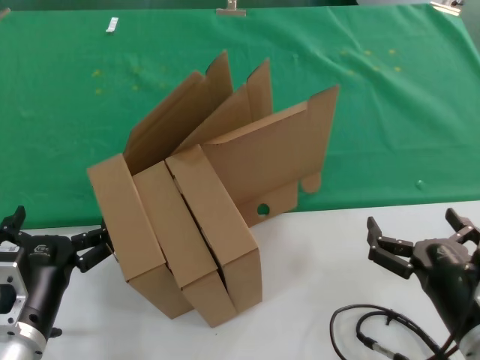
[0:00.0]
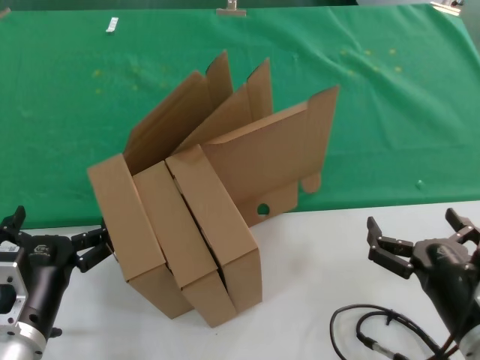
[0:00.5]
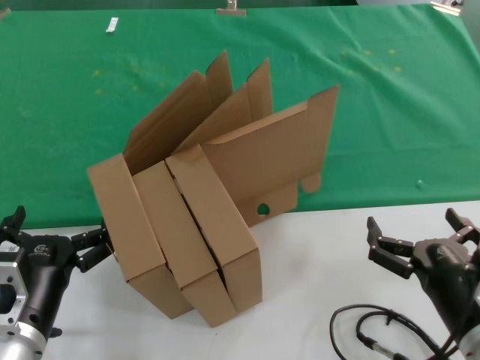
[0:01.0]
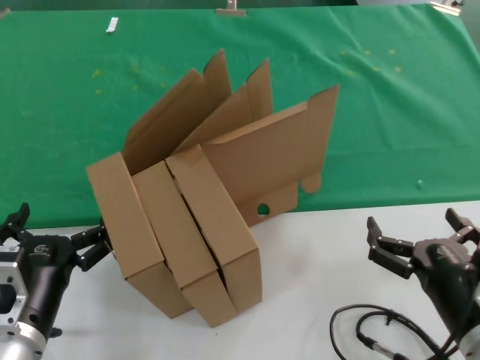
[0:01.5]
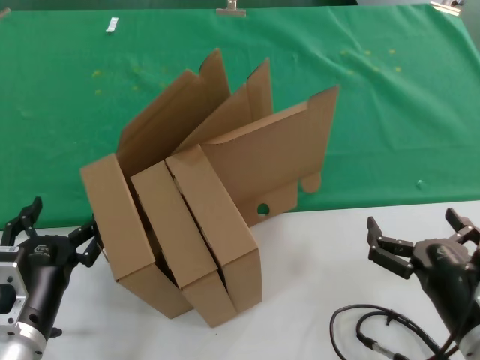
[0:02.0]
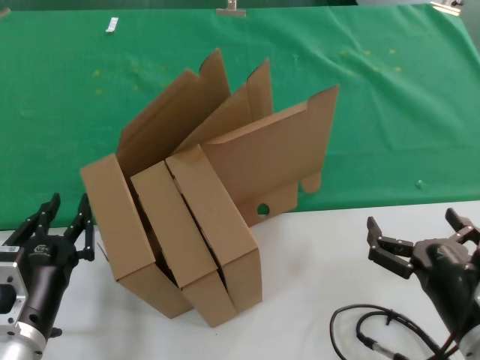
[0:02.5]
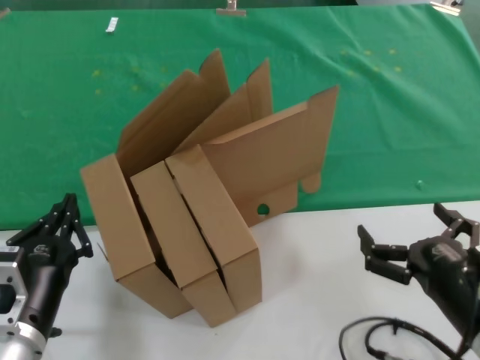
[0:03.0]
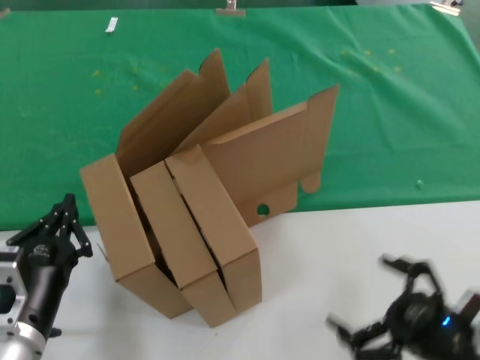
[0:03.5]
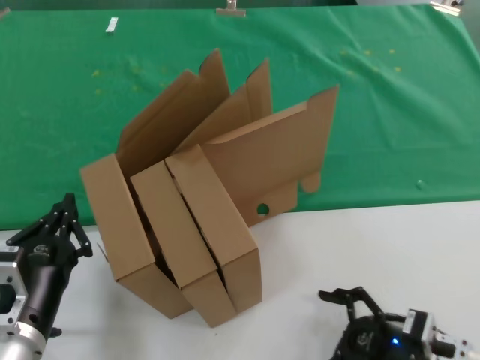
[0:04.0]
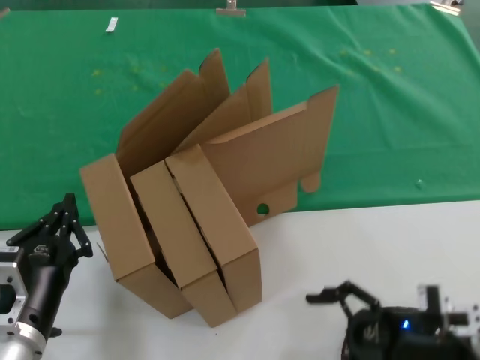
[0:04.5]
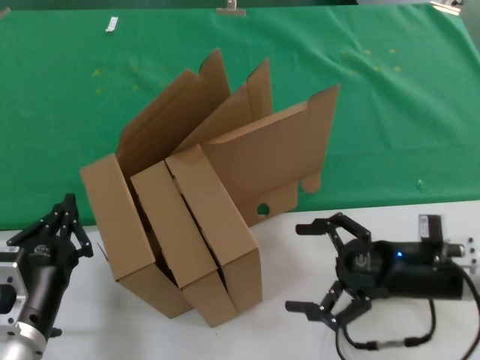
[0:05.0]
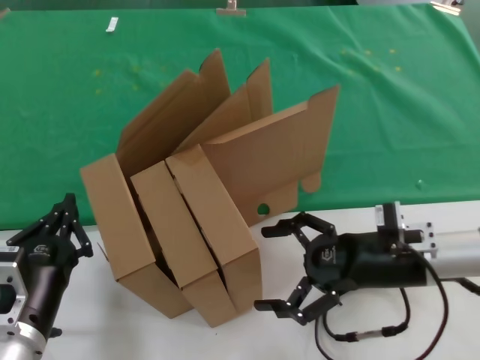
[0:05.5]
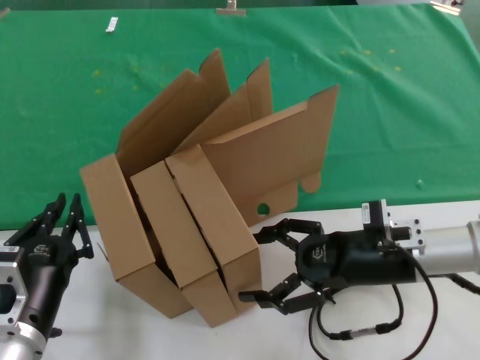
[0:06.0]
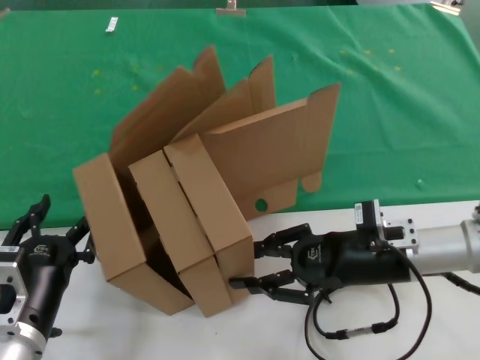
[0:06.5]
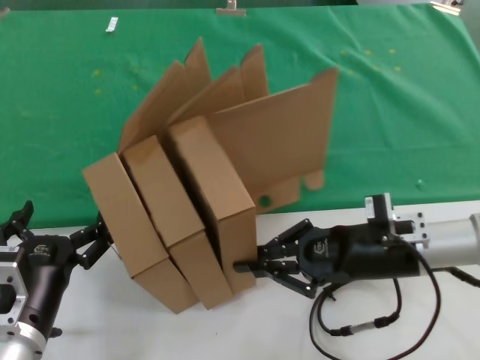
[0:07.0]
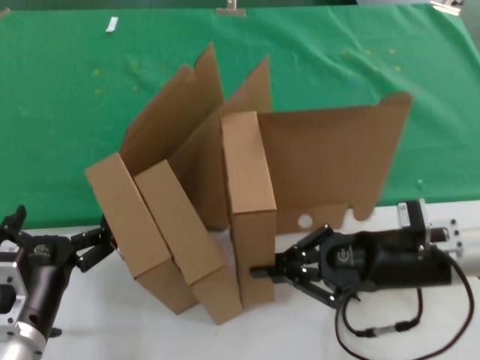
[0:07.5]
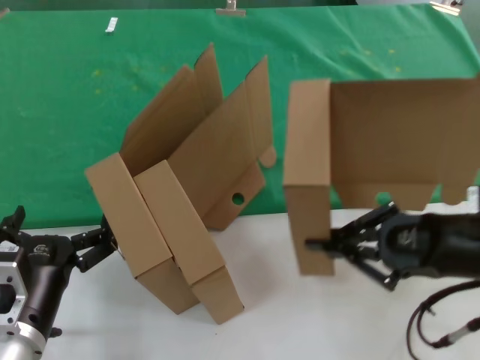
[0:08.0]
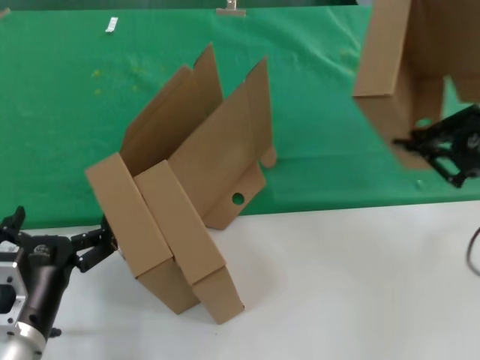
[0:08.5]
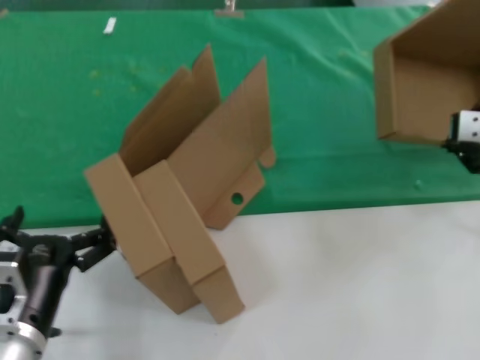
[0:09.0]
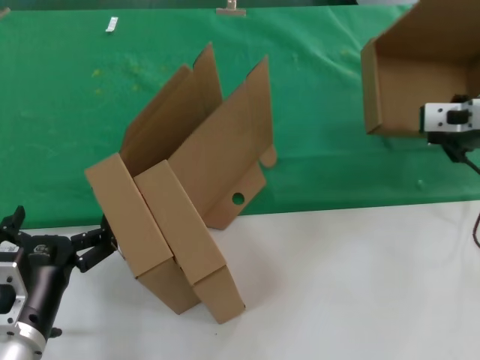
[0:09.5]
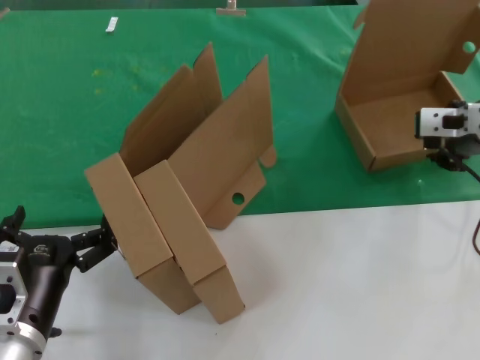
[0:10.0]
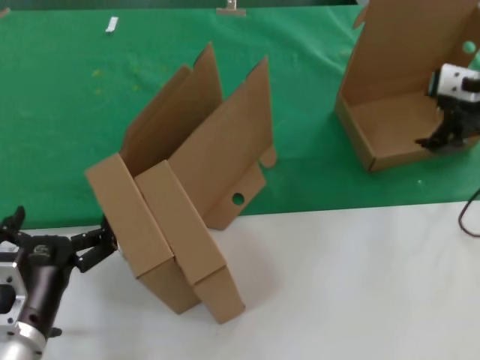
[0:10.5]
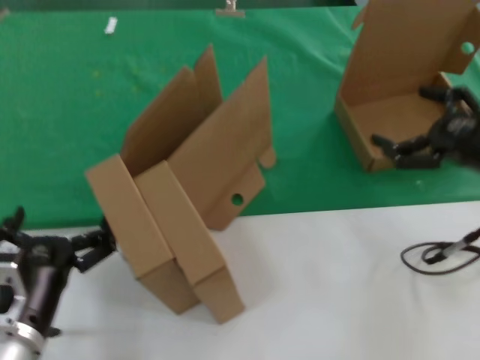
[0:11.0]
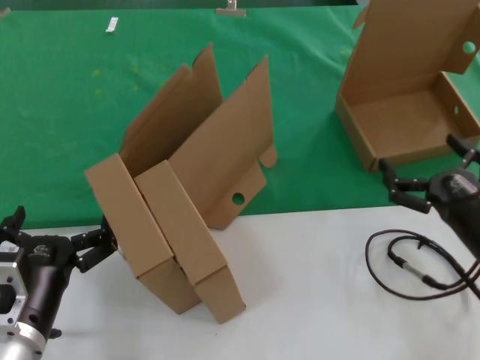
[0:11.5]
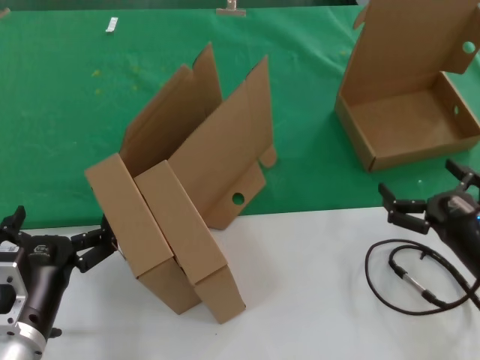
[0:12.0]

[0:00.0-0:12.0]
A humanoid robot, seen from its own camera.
Task of the whole recording: pick up the paper box and put it at the back.
Step, 0:00.0 to 0:07.0: Grasp the paper box.
Step, 0:07.5 to 0:10.0: Place the paper box on the table.
0:00.0 to 0:02.0: Both hands stay about where they are.
0:02.0 to 0:04.0: The right hand shifts some 5 cm downward.
0:04.0 to 0:06.0: The right hand moves forward and upward, approximately 15 cm.
0:06.0 to 0:08.0: The right hand moves upward, backward and to the right, about 15 cm.
0:08.0 to 0:10.0: The right hand travels forward and upward by approximately 20 cm.
0:10.0 to 0:12.0: The right hand moves downward and backward, some 25 cm.

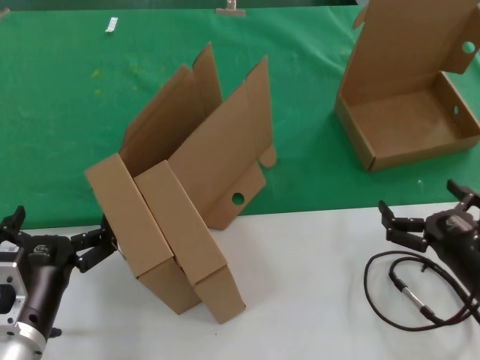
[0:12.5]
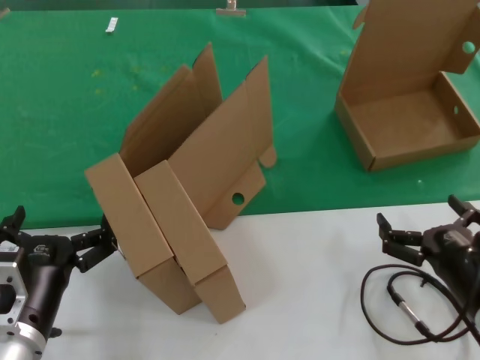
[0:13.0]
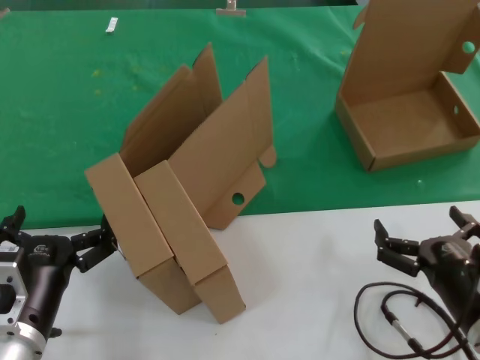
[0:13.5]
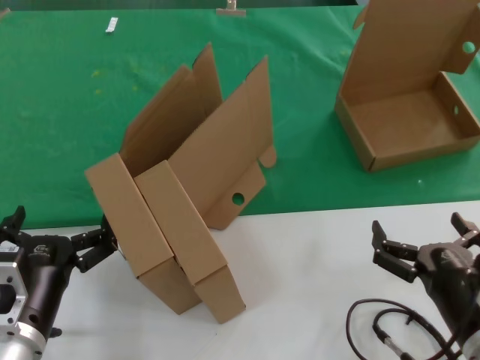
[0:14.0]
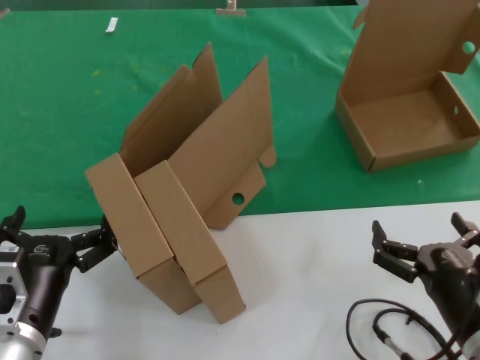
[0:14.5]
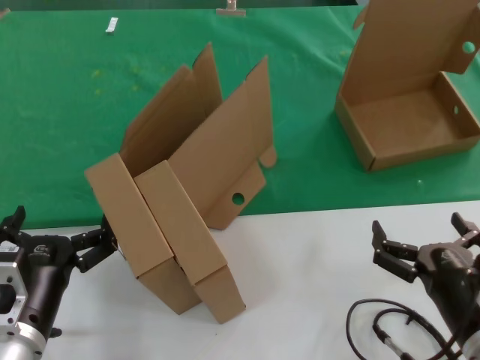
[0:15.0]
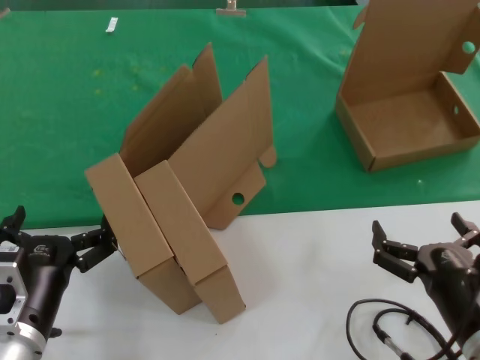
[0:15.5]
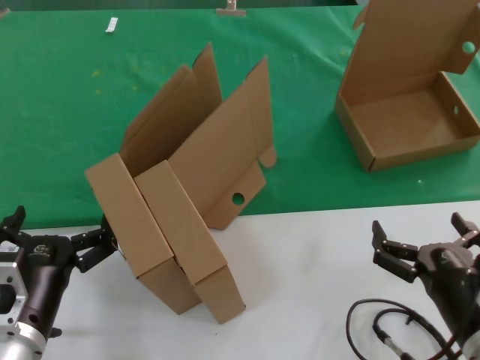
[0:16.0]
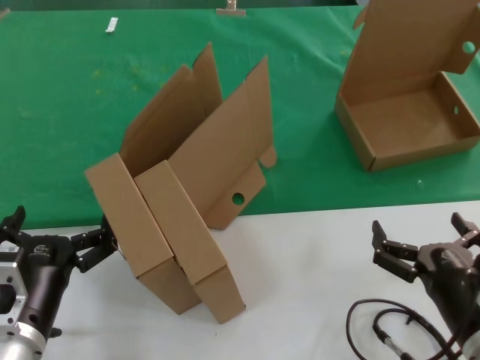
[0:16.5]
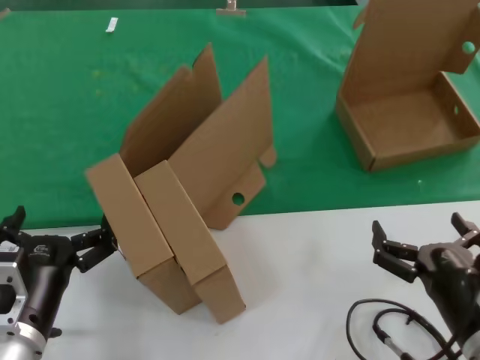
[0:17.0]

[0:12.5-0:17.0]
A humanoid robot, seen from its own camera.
Task of the whole recording: pick up the paper box and put it at the back.
0:12.5 to 0:14.5: The right hand goes some 10 cm backward and to the left.
0:14.5 to 0:17.0: Both hands stay about where they are.
